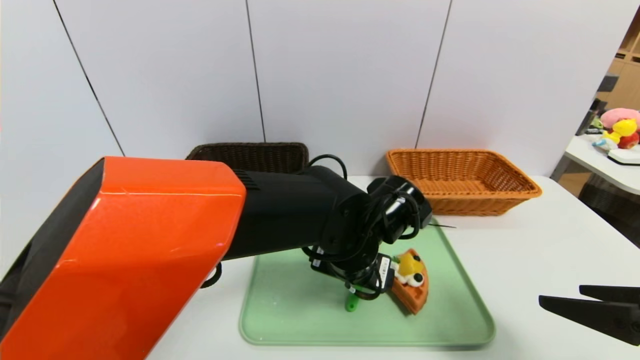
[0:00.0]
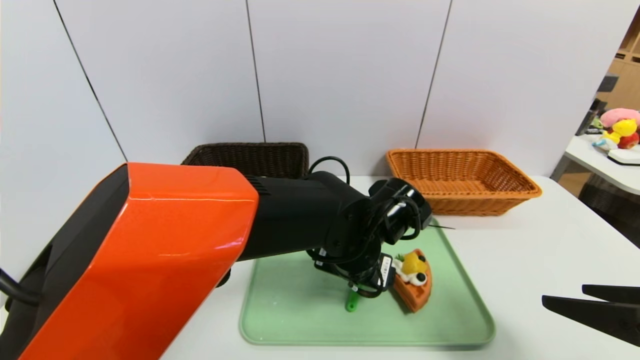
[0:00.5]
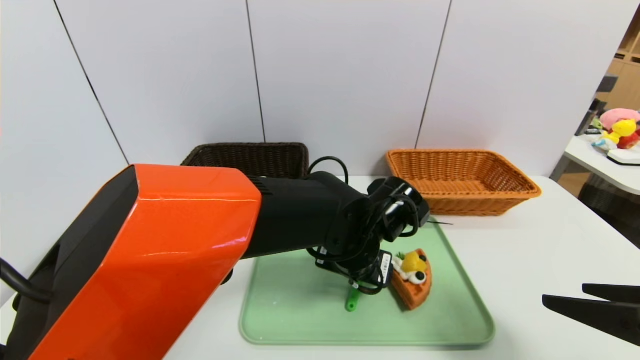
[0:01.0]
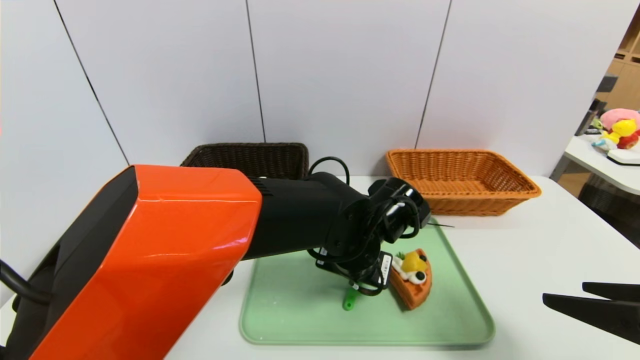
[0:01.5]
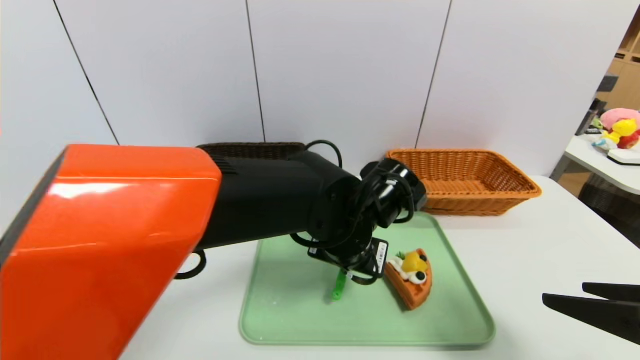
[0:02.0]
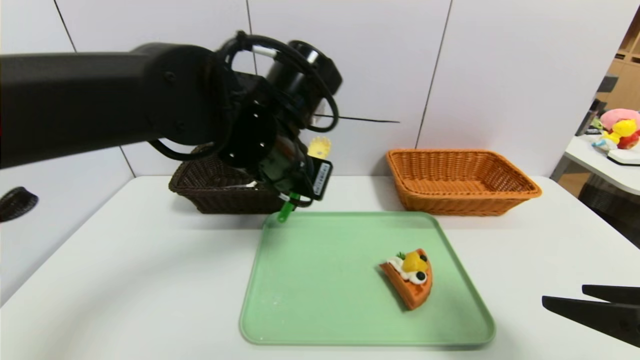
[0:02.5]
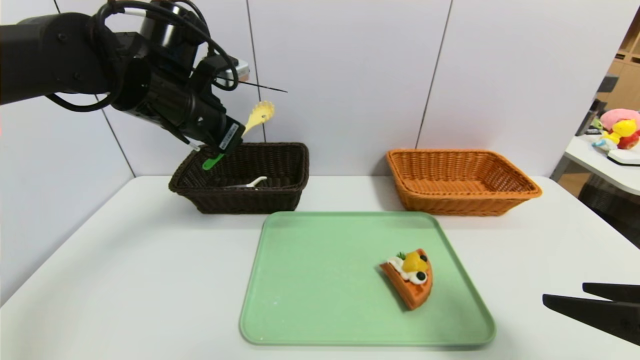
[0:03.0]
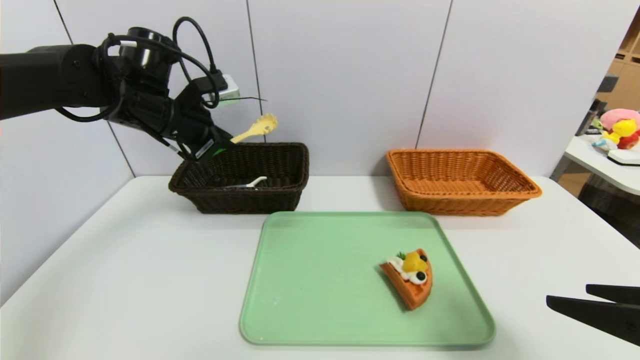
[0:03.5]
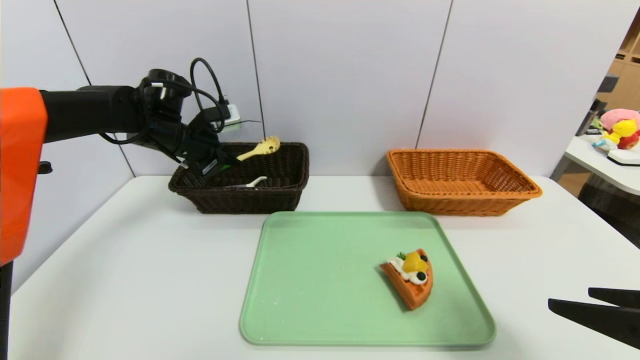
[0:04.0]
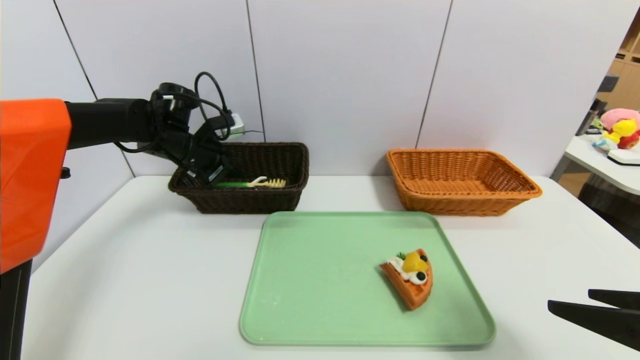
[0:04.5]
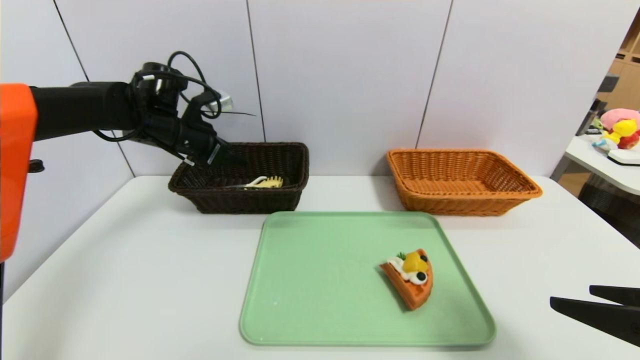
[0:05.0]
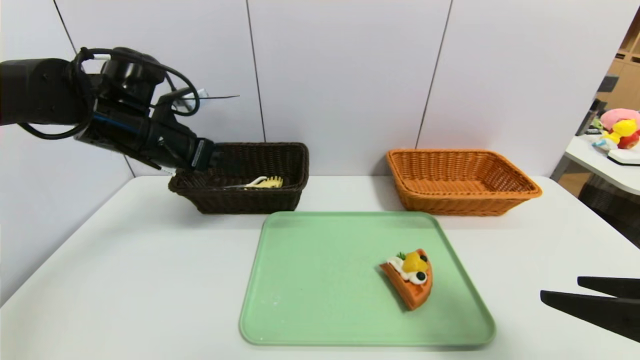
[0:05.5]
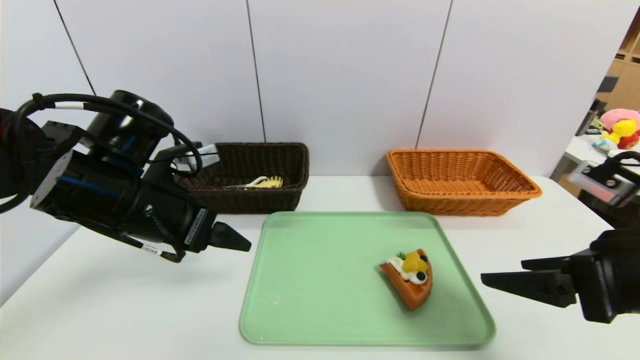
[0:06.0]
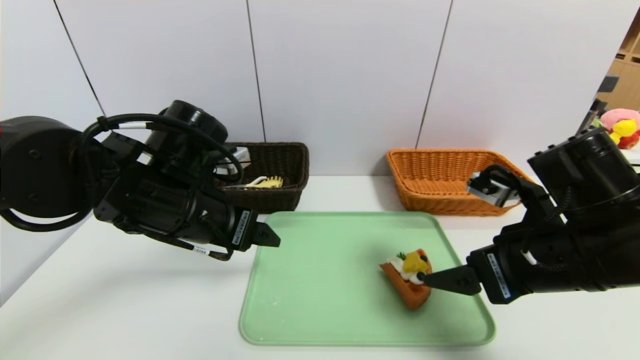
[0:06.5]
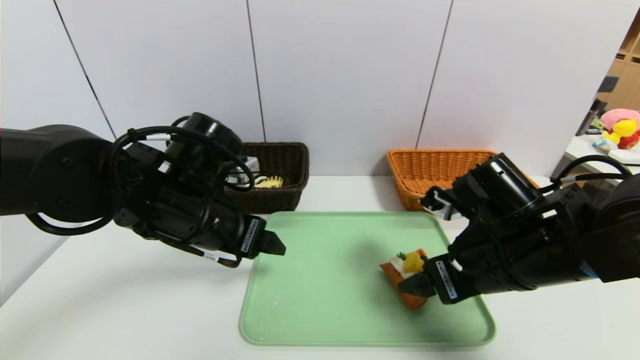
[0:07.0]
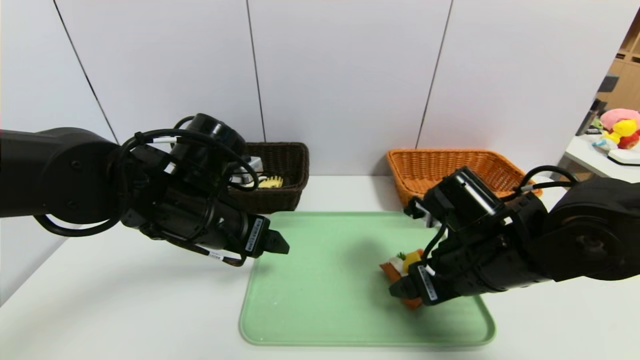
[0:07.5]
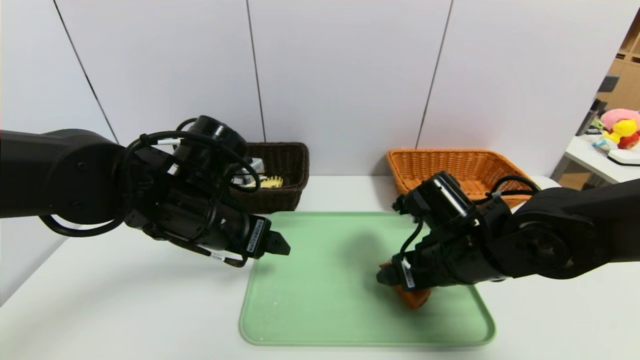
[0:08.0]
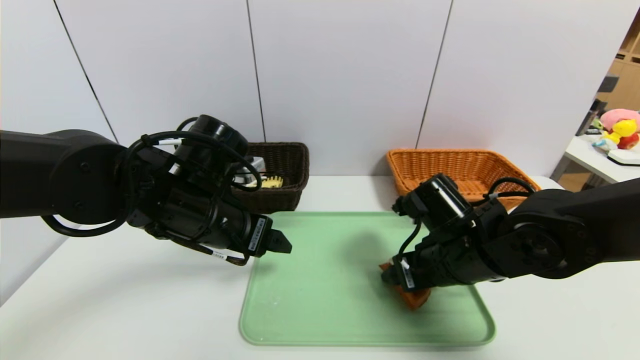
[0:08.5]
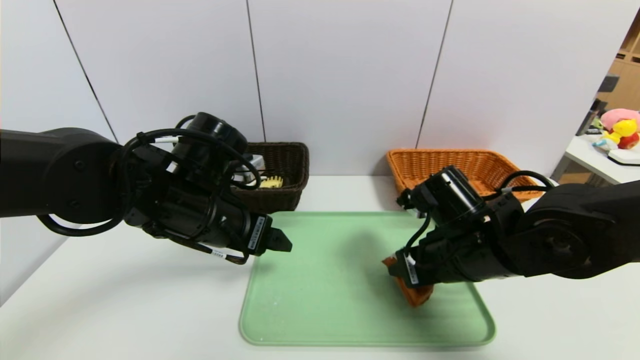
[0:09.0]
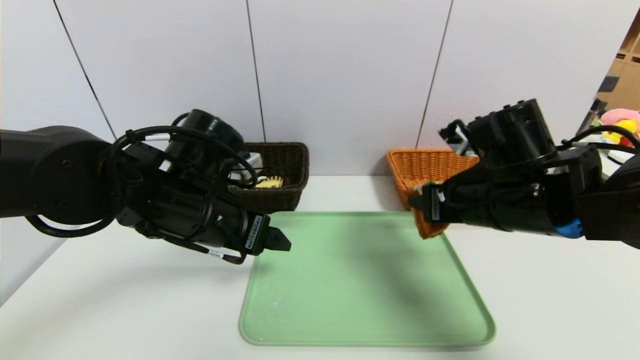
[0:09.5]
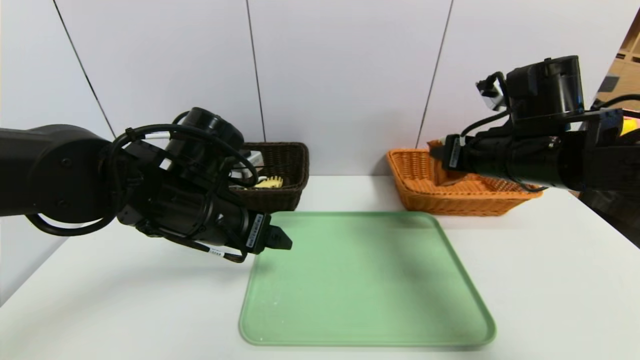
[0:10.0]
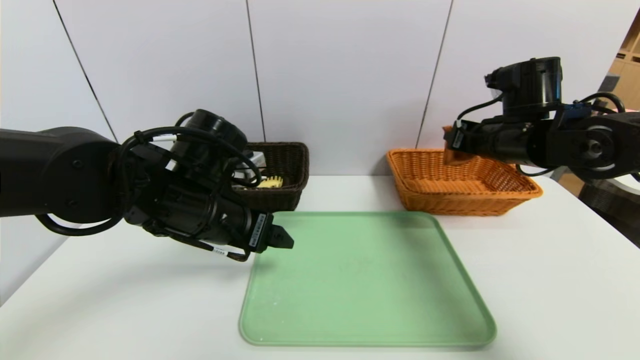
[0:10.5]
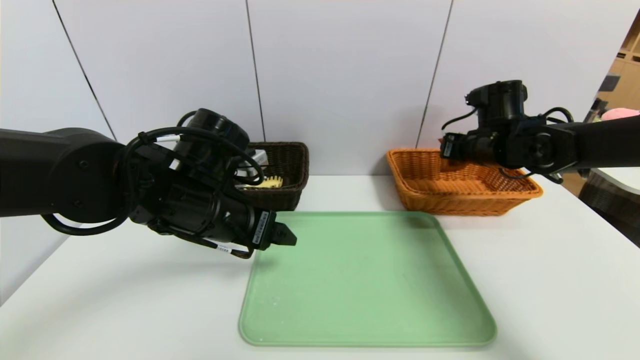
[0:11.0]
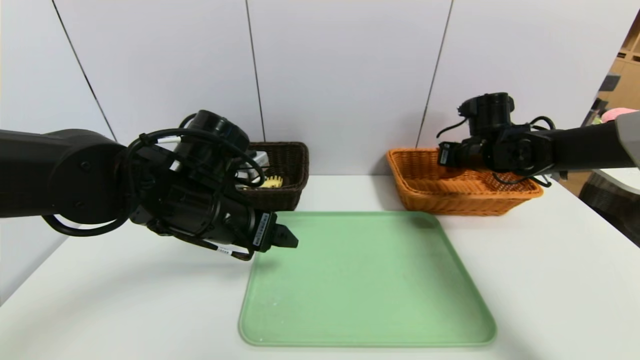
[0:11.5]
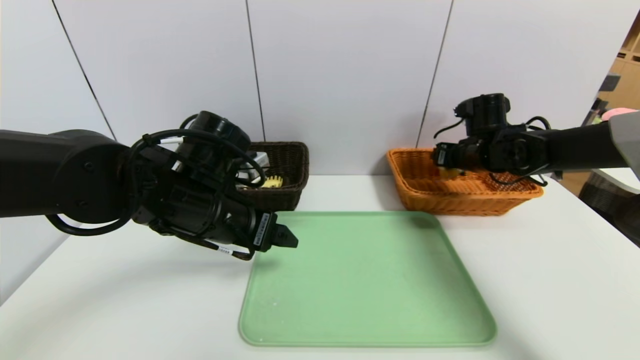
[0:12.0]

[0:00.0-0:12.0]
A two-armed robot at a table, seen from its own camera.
Task of the whole recording: place the food in the right basket with the right gripper, and place the non food items in the left basket with the left gripper.
Step, 0:00.0 to 0:05.0: Grasp the spoon and put it in the left basket.
0:00.0 to 0:02.0: The left gripper closes.
0:02.0 to 0:04.0: The left gripper heads to the left and forward, covering about 35 cm.
0:04.0 to 0:06.0: The right gripper moves forward, approximately 5 cm, while the left gripper travels backward by about 20 cm, and opens its fingers.
0:06.0 to 0:08.0: The right gripper travels to the left, forward and downward by about 20 cm; the left gripper shifts some 5 cm to the right.
0:08.0 to 0:10.0: The right gripper moves upward and to the right, some 15 cm, and closes up.
0:10.0 to 0:12.0: The right gripper moves forward and downward, some 15 cm, and opens.

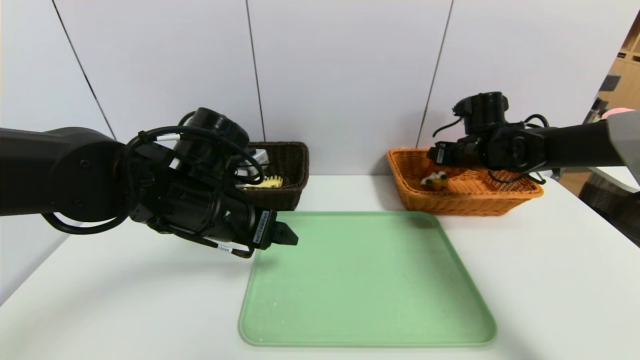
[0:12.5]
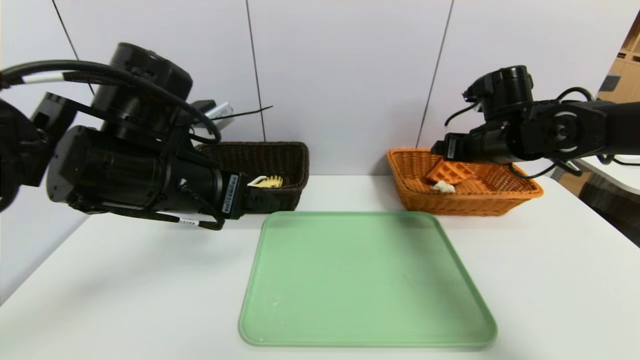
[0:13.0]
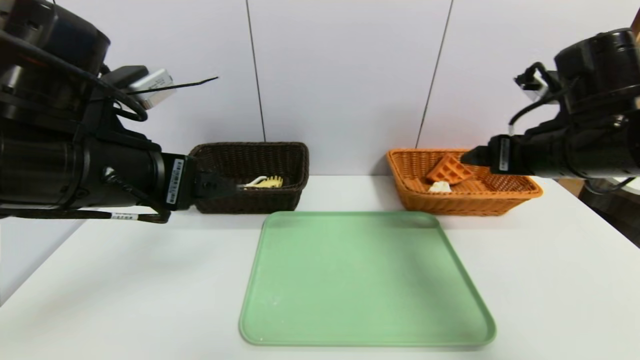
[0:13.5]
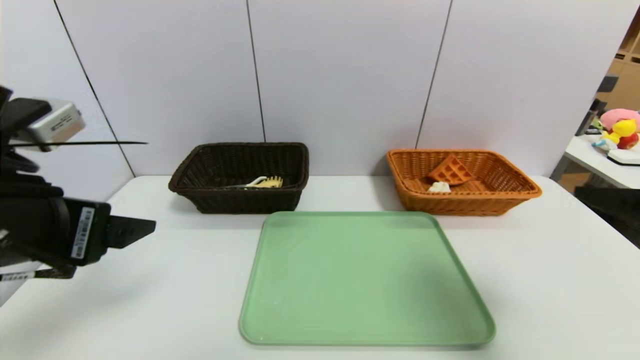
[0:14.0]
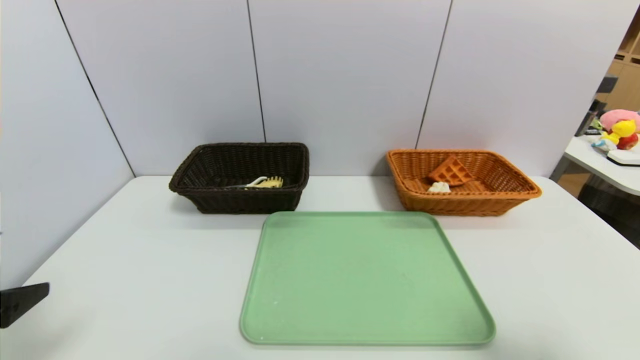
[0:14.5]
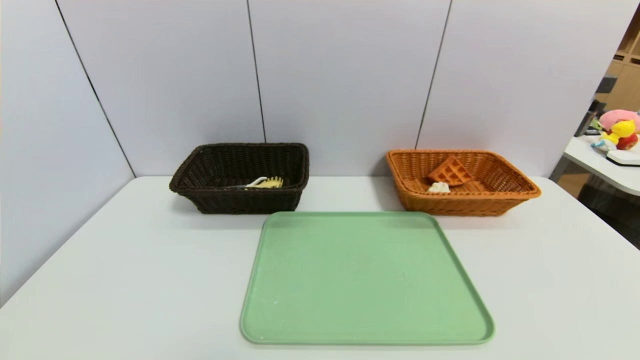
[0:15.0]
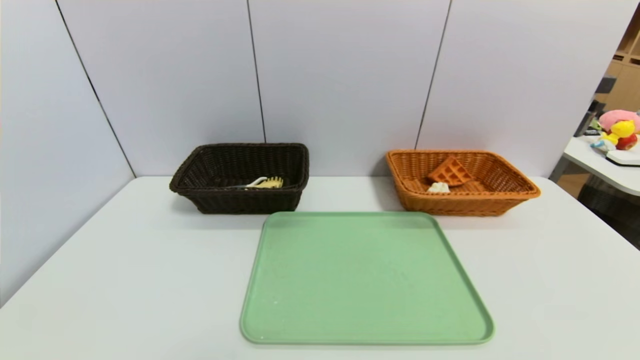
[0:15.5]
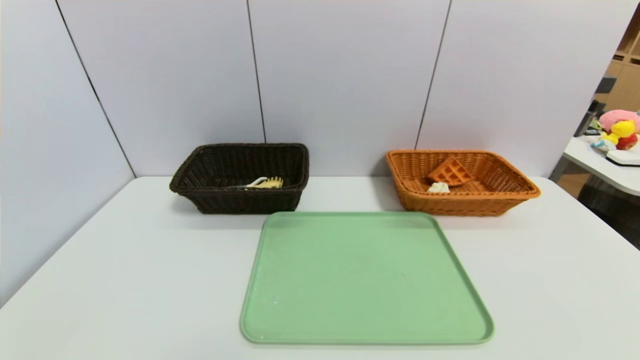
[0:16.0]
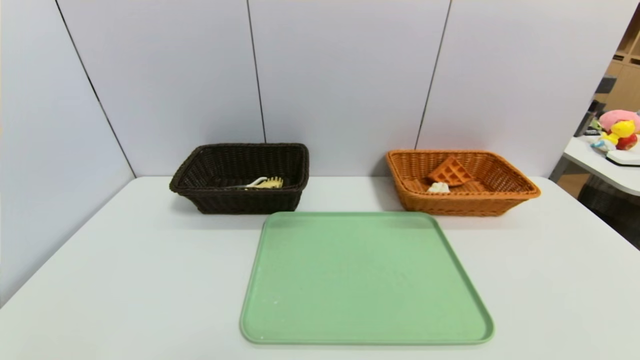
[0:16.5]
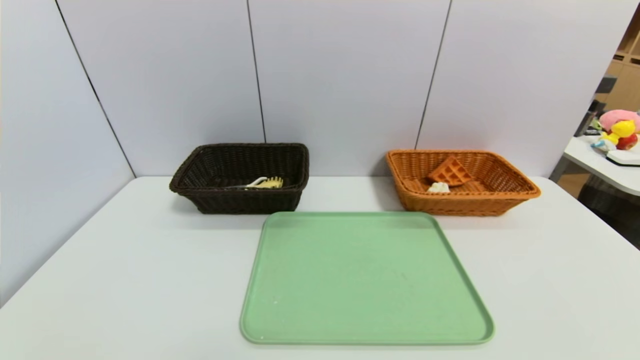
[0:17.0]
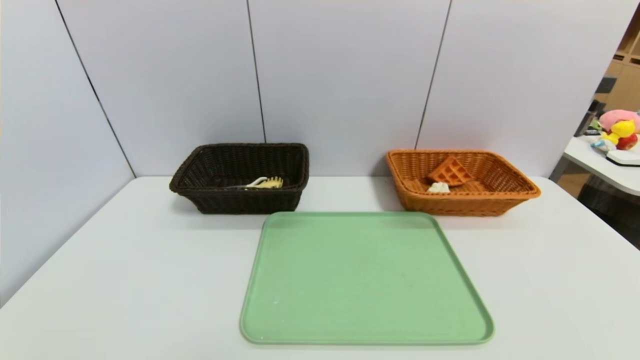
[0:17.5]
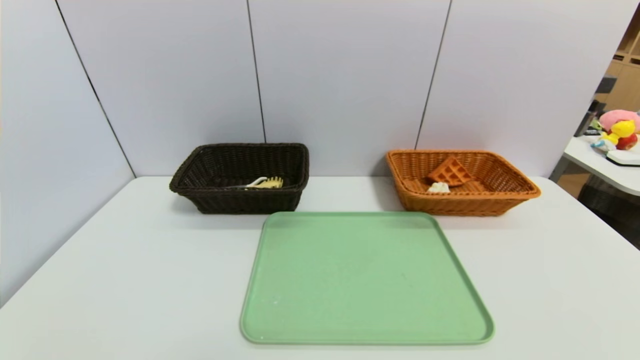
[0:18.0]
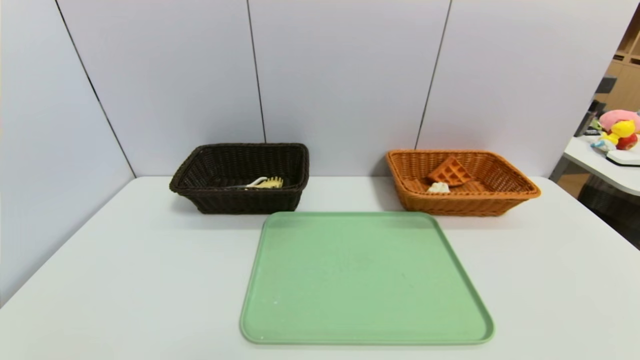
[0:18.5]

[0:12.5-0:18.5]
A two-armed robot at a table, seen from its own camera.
Task of the whole recording: place the food in the right basket with the right gripper, and place the non food items in the left basket with the left gripper.
0:12.5 to 0:14.5: The right gripper is displaced backward by approximately 40 cm, while the left gripper travels backward and to the left by some 25 cm.
0:14.5 to 0:16.5: Both grippers travel together downward and backward, approximately 15 cm.
